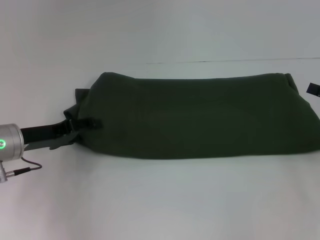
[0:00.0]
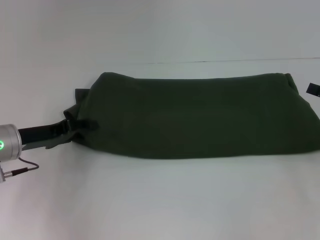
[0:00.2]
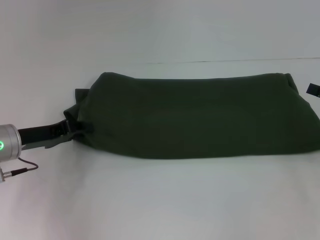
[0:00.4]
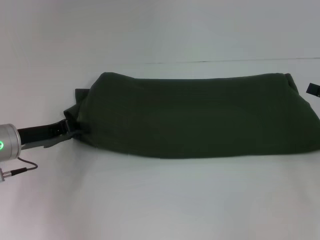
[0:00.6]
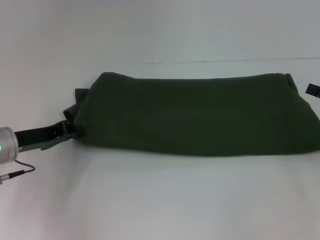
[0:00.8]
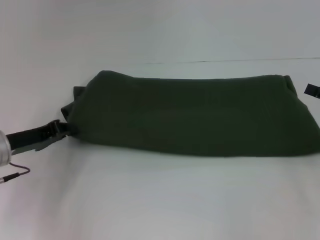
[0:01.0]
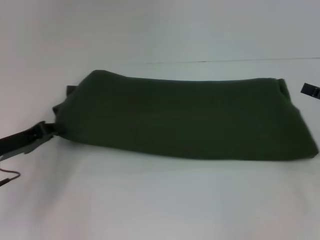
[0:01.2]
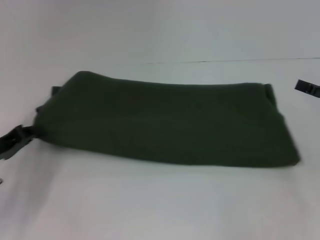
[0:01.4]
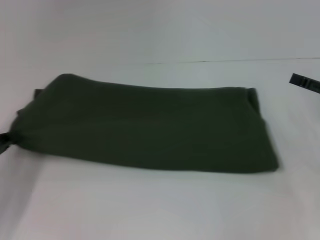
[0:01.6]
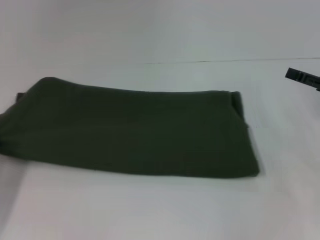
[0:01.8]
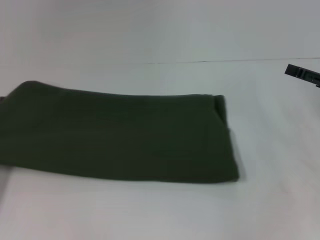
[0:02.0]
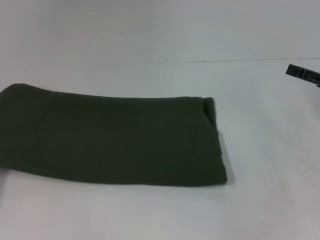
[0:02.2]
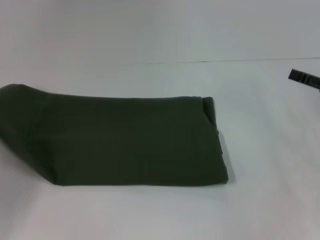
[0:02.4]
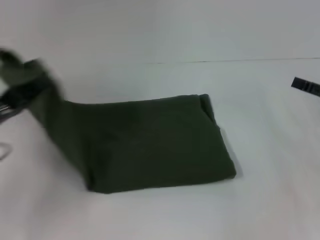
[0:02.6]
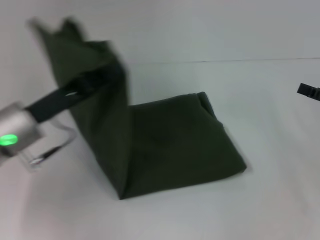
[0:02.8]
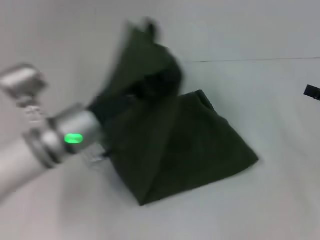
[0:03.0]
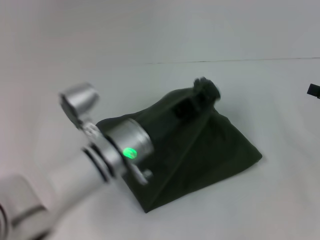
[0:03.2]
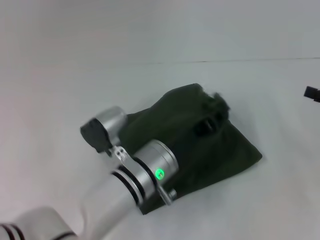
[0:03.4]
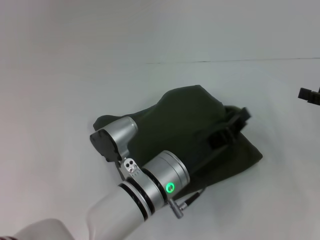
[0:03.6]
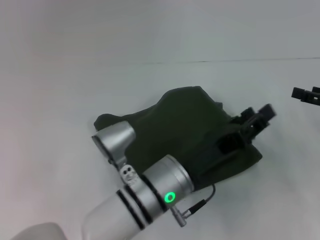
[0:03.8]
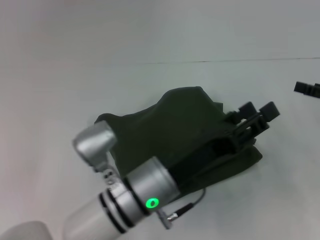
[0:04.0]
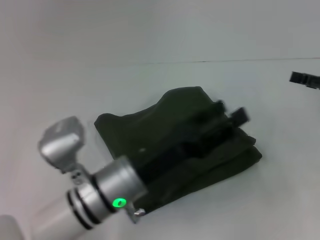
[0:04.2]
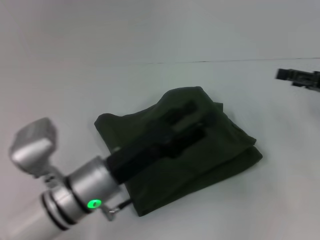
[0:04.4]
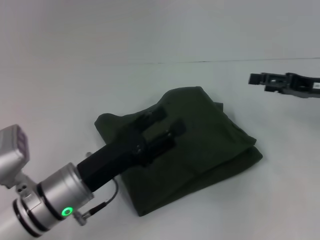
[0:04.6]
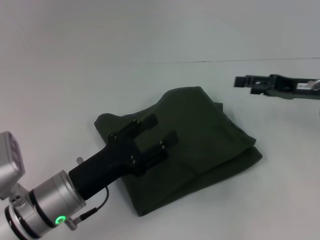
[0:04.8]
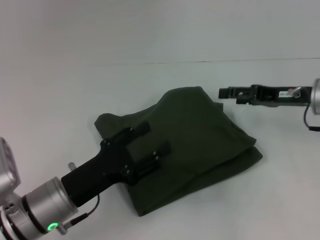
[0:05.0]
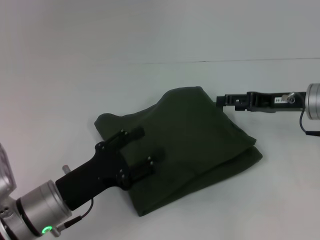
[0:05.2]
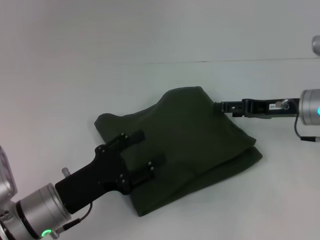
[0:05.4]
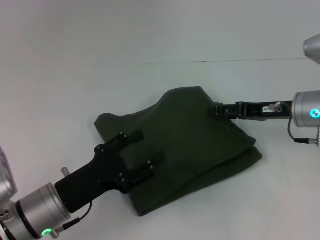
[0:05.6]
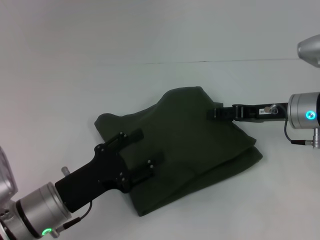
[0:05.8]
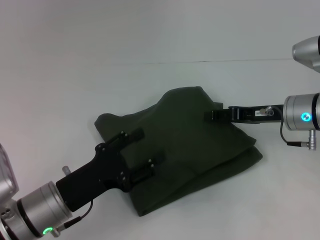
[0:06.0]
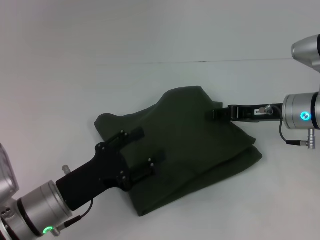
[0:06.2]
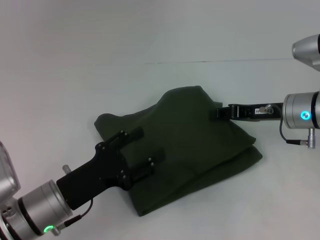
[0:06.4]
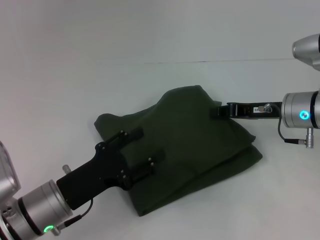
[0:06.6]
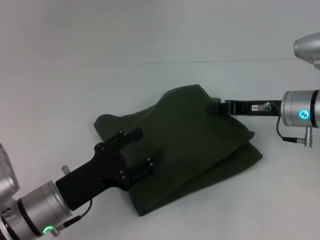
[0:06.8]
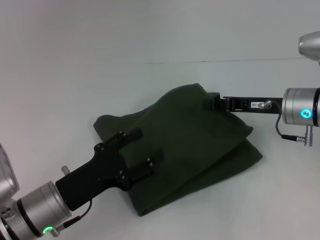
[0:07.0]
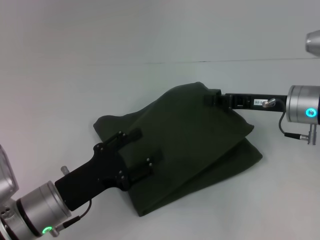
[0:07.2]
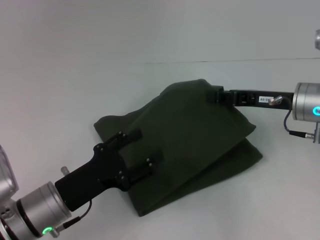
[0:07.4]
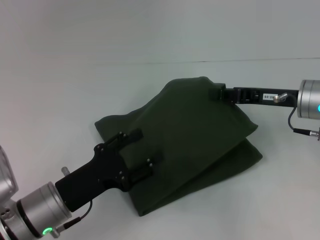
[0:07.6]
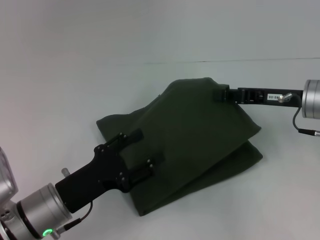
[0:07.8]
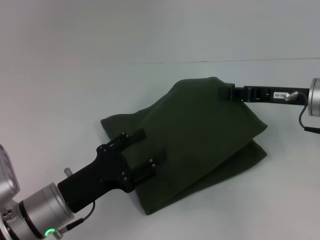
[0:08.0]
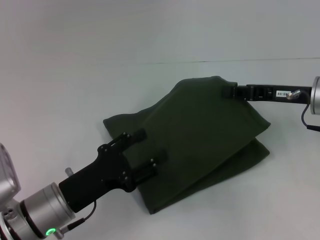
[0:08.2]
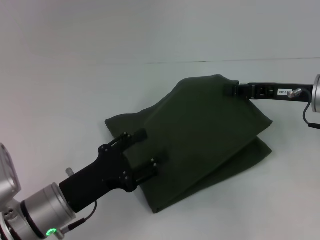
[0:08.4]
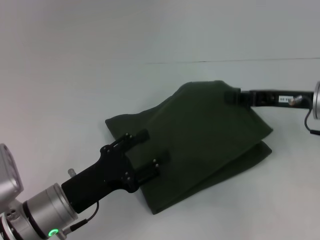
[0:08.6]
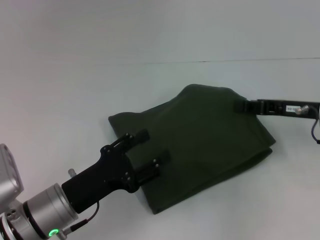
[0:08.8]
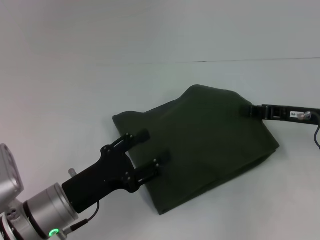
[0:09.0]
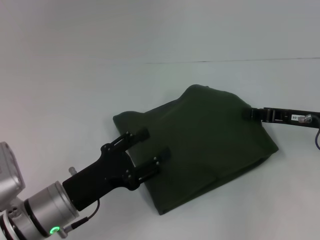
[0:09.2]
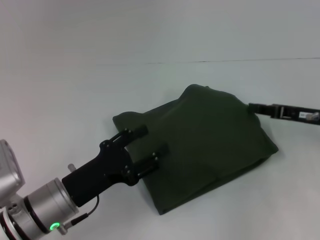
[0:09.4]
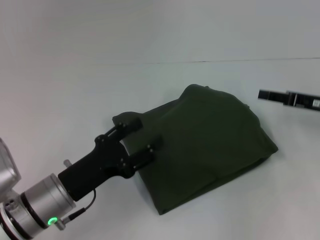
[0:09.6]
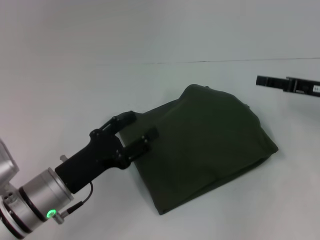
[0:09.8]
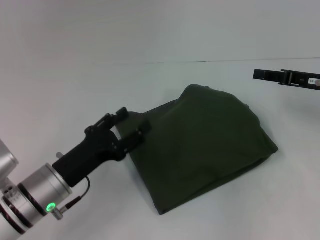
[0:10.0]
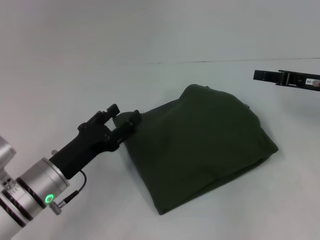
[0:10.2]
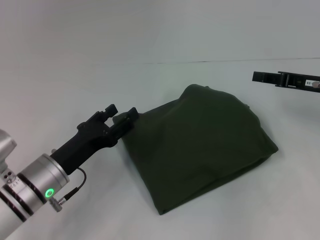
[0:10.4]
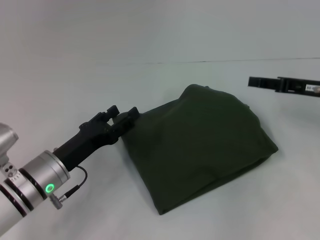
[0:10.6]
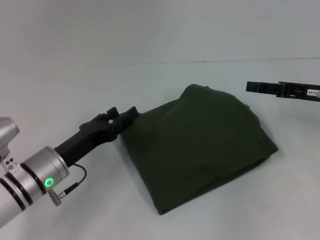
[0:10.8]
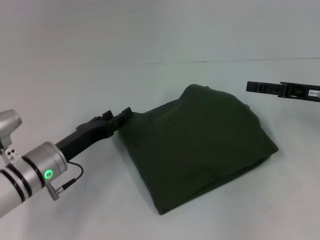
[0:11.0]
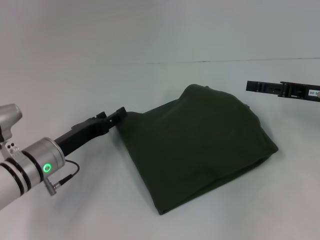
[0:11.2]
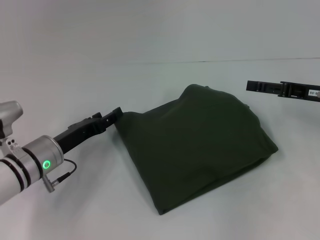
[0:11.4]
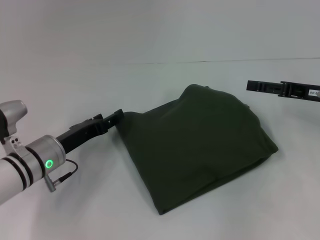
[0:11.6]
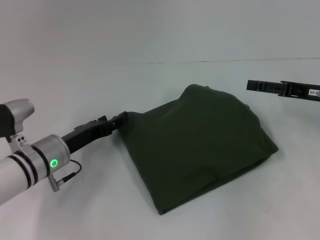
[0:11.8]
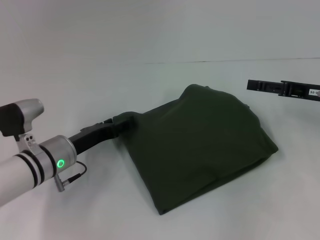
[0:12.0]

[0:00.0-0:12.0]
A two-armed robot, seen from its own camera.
Step, 0:00.0 to 0:03.6: Fold the clothes with your left hand.
0:00.0 to 0:01.6: The left gripper moves to the left and backward, about 10 cm, and closes.
0:01.6 to 0:03.0: The left gripper shifts approximately 20 cm to the right.
0:03.0 to 0:04.4: The right gripper shifts about 5 cm forward. Meanwhile the left gripper shifts about 5 cm backward, travels to the right and back again, approximately 10 cm each way, and opens up.
0:04.4 to 0:06.0: The left gripper shifts approximately 5 cm to the left. The right gripper shifts some 10 cm to the left.
0:06.0 to 0:07.6: The right gripper closes.
0:07.6 to 0:09.0: The right gripper ends up approximately 5 cm from where it was.
0:09.0 to 0:10.4: The grippers move only a little.
0:10.4 to 0:12.0: The right gripper opens its fingers, while the left gripper moves forward, about 5 cm.

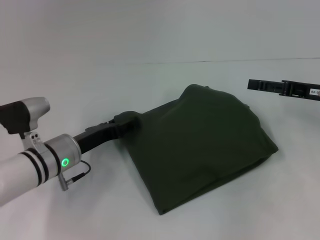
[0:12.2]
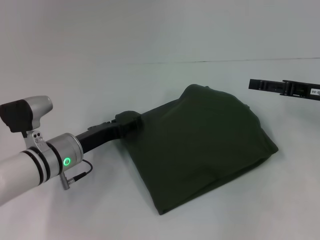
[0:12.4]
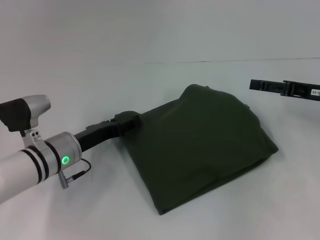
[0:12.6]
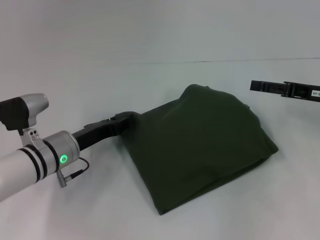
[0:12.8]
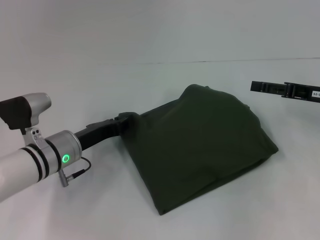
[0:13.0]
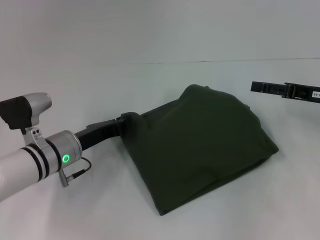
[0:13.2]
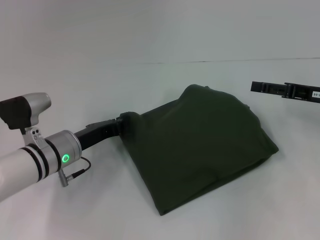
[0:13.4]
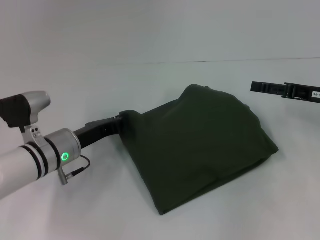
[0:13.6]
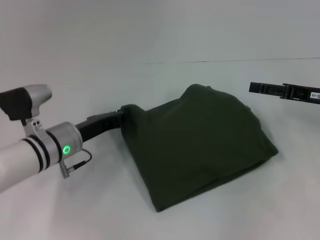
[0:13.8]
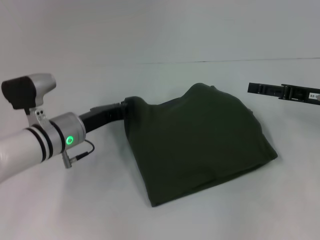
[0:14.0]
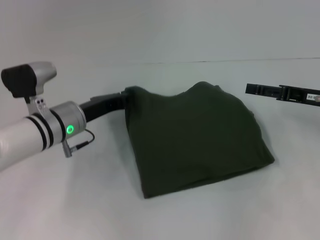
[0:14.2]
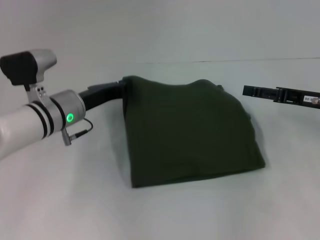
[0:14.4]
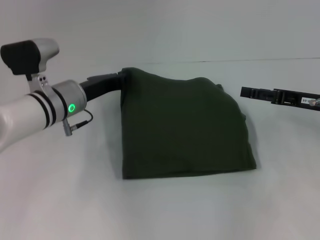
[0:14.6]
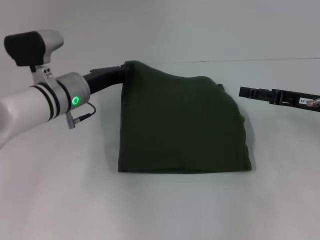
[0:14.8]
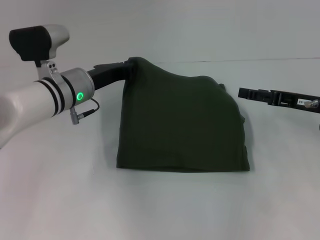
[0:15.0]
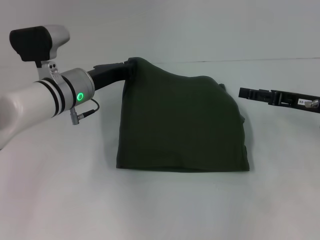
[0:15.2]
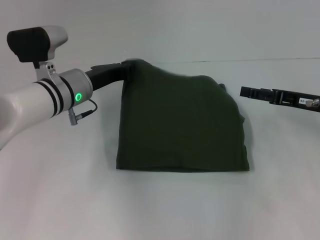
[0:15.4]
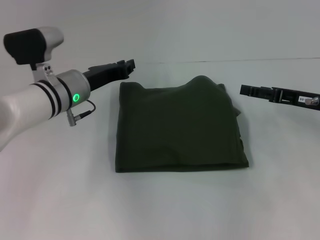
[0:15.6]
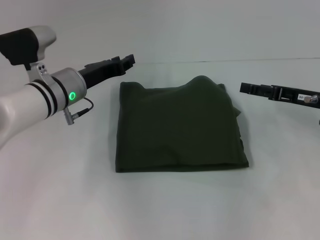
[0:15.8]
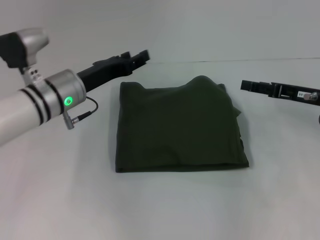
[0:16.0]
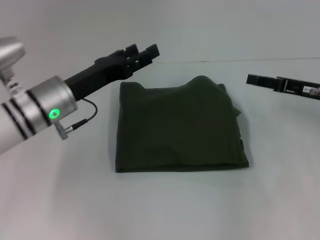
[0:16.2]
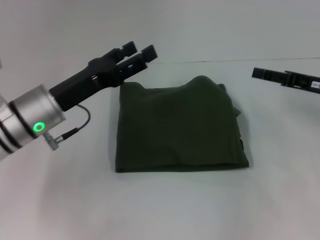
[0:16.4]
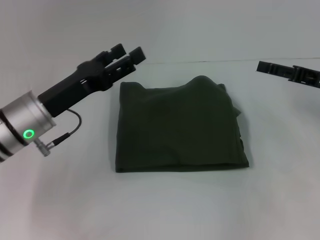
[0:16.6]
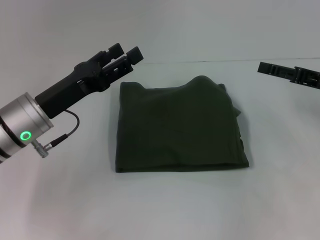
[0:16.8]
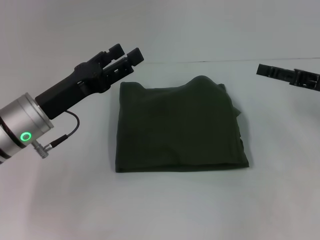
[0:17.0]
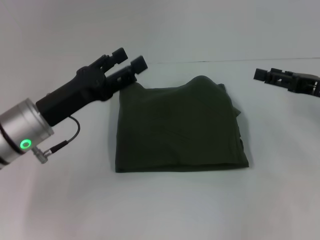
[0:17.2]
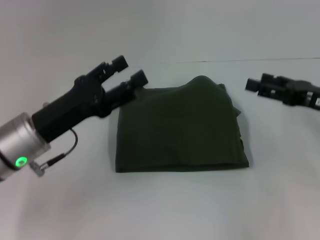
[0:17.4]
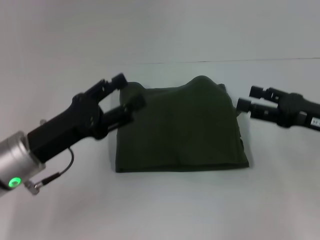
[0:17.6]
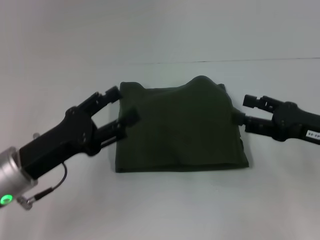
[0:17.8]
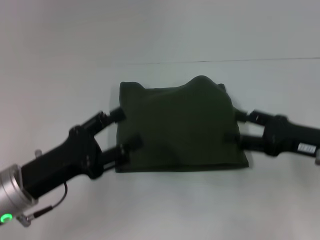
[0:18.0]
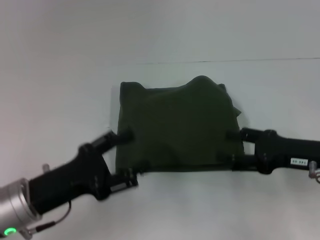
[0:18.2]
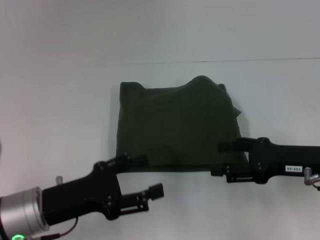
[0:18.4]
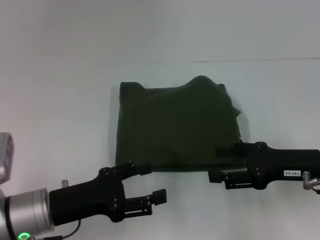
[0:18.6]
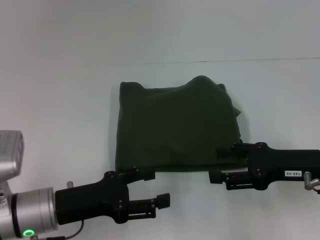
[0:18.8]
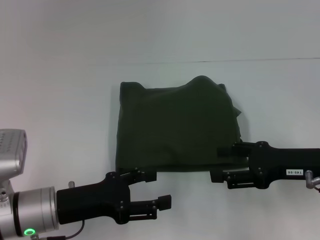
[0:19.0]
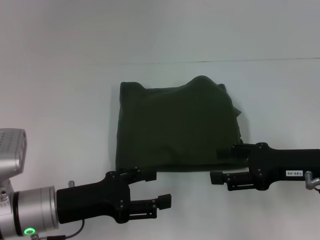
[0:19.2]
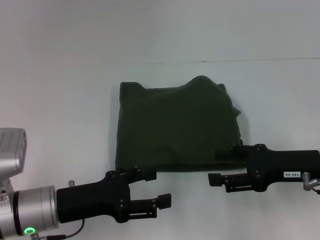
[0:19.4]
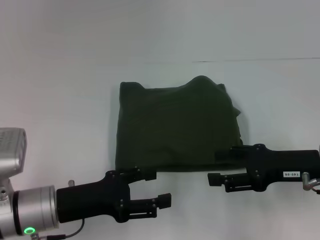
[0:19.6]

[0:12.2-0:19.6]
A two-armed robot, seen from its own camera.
0:12.2 to 0:13.6: The left gripper closes its fingers.
0:13.6 to 0:15.2: The left gripper travels forward and upward by some 10 cm.
0:15.2 to 0:16.6: The left gripper shifts about 10 cm backward, and opens its fingers.
0:16.6 to 0:18.2: Both grippers travel together backward, some 10 cm.

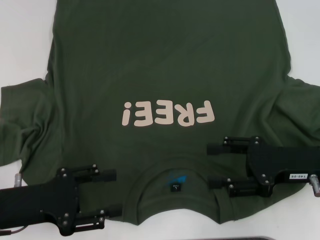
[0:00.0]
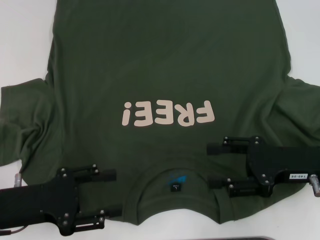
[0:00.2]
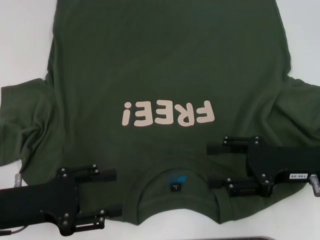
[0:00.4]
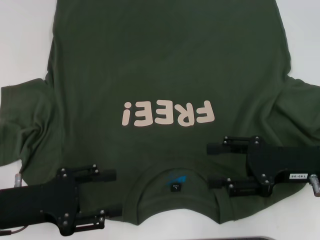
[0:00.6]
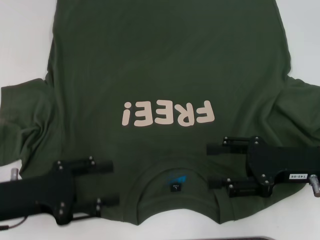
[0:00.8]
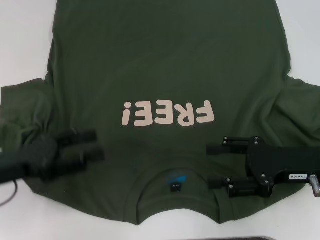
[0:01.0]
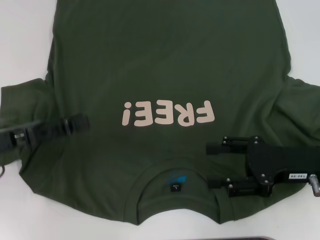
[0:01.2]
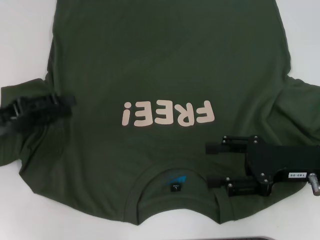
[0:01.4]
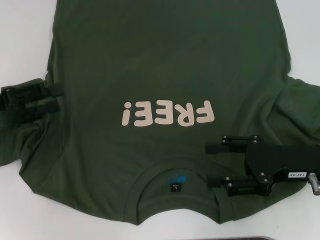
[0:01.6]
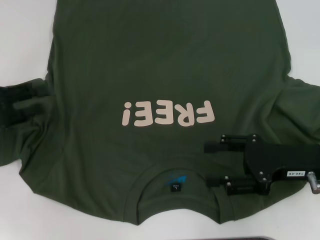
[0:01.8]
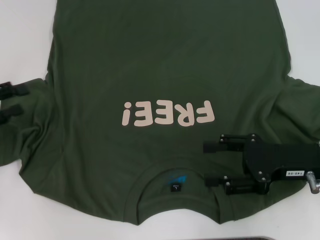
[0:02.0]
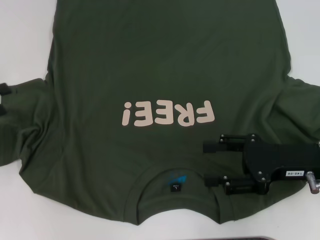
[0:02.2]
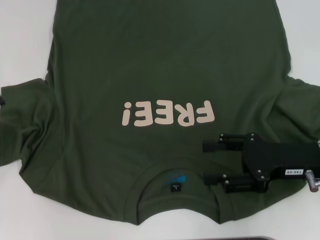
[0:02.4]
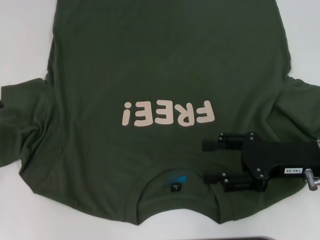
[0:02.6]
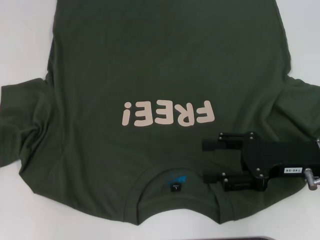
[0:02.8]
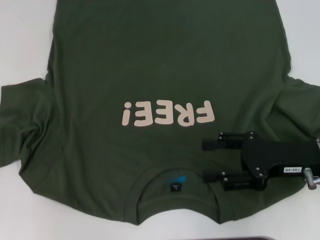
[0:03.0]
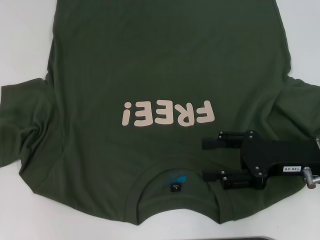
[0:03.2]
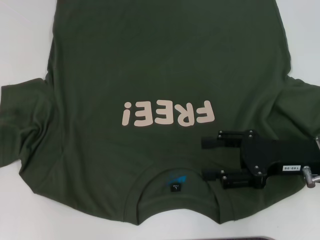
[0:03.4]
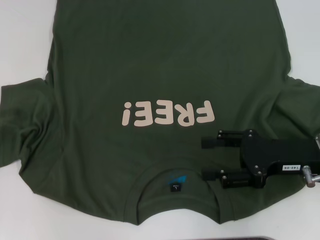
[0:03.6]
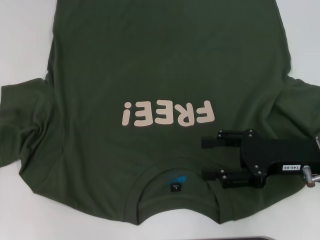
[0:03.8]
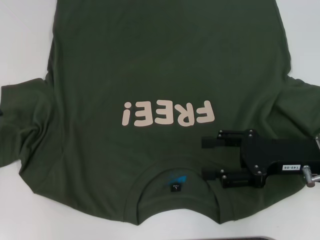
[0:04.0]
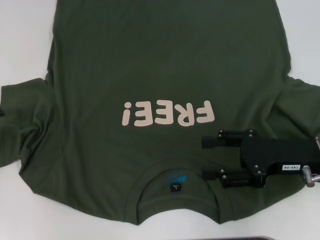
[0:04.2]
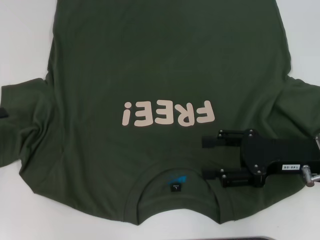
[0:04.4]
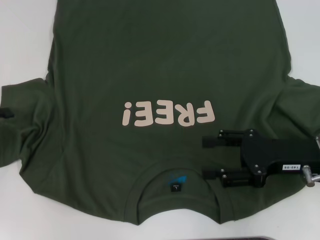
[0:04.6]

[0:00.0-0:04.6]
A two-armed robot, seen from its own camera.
0:00.0 to 0:01.6: The left gripper heads forward and to the left, covering some 10 cm.
0:01.6 to 0:03.0: The left gripper heads to the left, covering some 10 cm.
